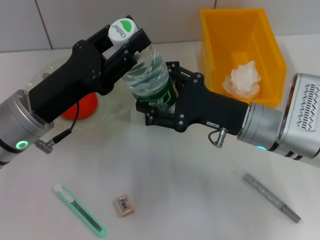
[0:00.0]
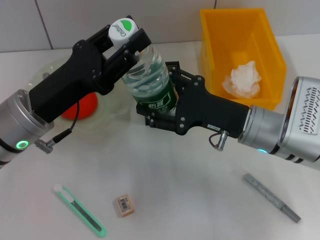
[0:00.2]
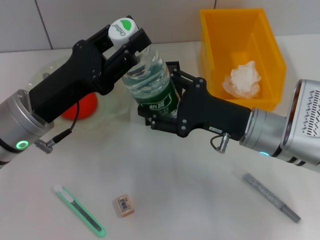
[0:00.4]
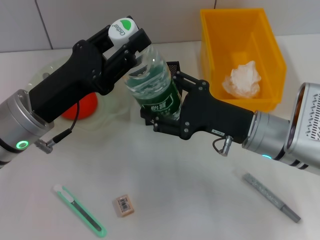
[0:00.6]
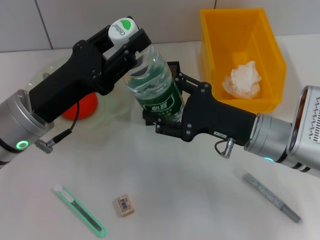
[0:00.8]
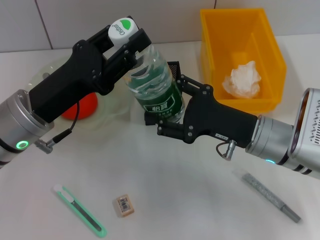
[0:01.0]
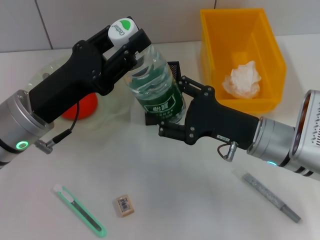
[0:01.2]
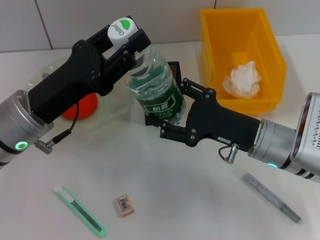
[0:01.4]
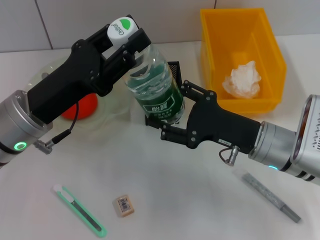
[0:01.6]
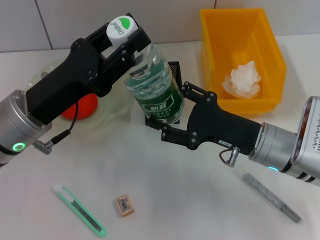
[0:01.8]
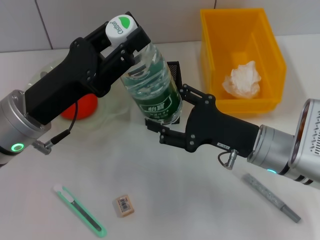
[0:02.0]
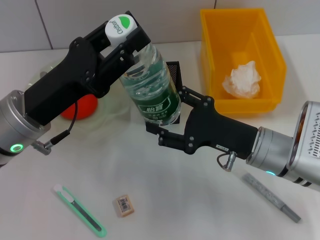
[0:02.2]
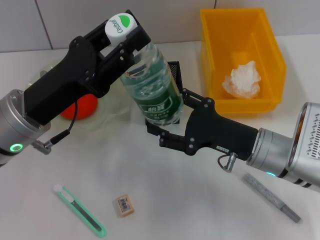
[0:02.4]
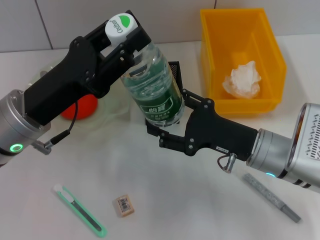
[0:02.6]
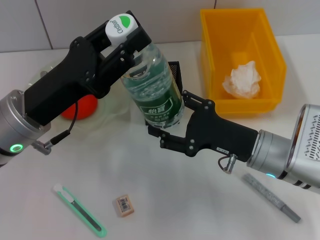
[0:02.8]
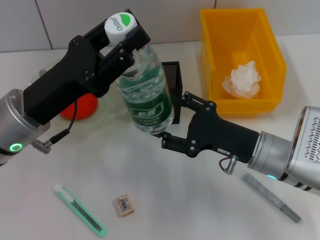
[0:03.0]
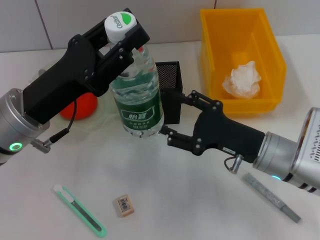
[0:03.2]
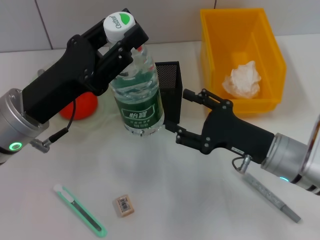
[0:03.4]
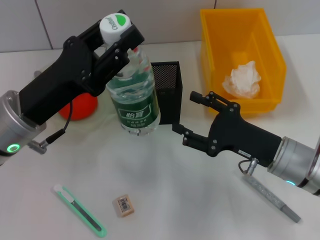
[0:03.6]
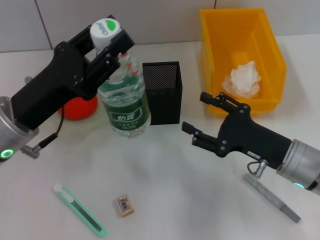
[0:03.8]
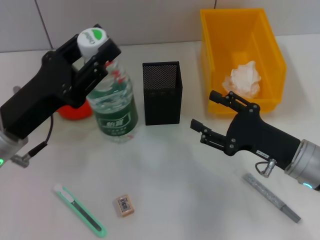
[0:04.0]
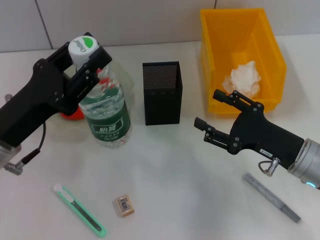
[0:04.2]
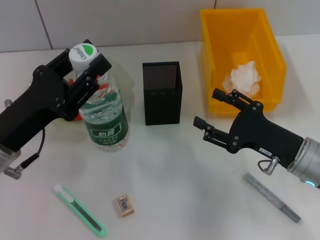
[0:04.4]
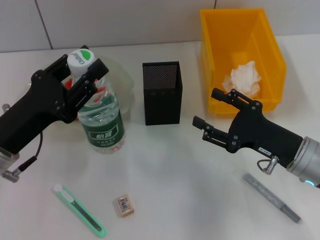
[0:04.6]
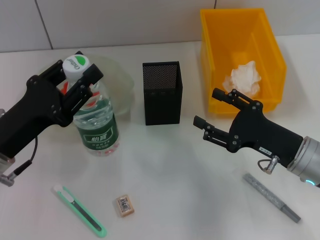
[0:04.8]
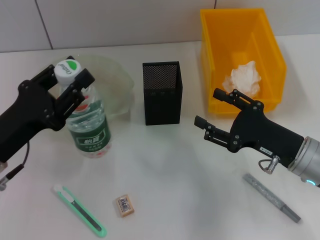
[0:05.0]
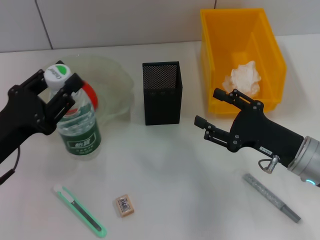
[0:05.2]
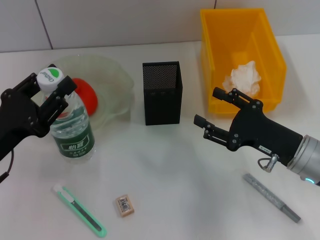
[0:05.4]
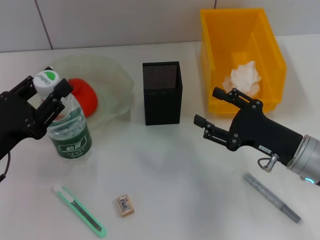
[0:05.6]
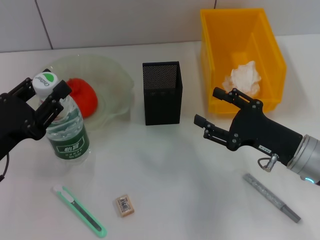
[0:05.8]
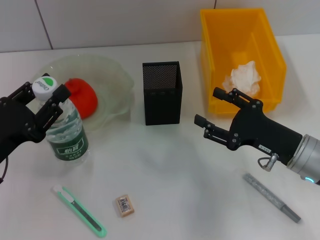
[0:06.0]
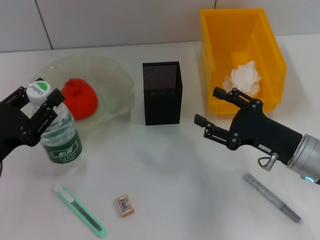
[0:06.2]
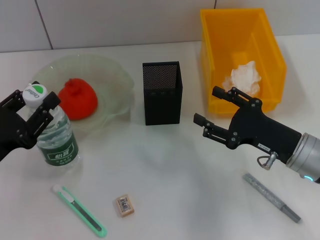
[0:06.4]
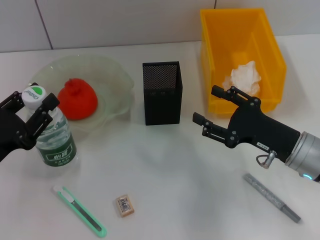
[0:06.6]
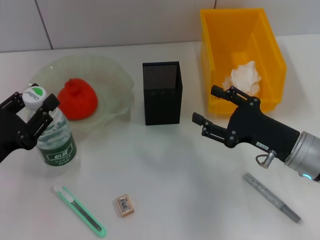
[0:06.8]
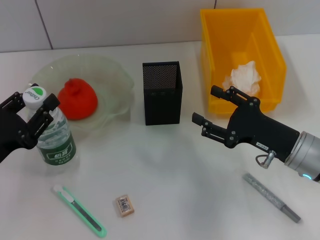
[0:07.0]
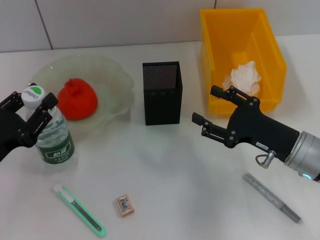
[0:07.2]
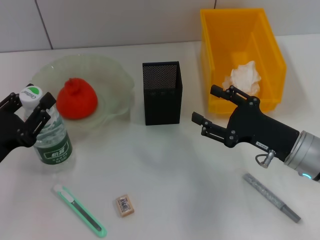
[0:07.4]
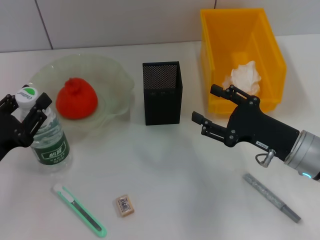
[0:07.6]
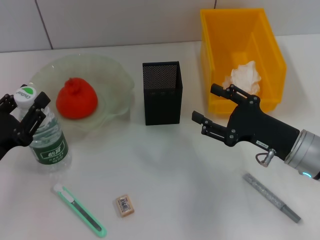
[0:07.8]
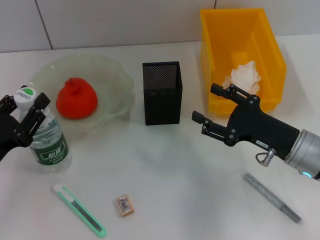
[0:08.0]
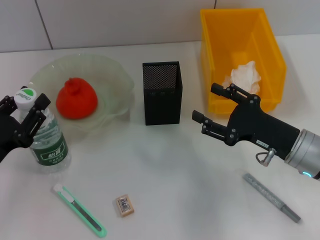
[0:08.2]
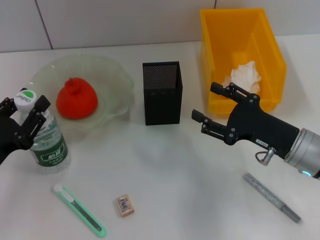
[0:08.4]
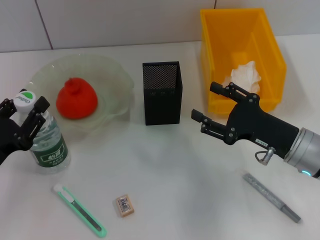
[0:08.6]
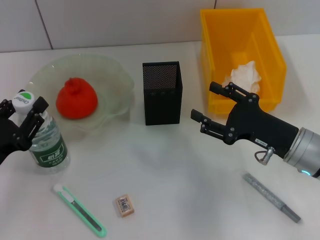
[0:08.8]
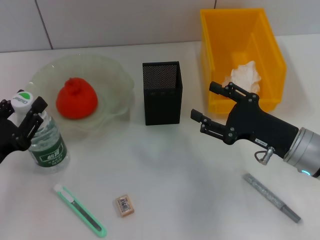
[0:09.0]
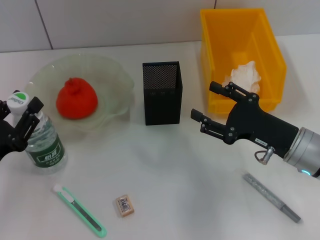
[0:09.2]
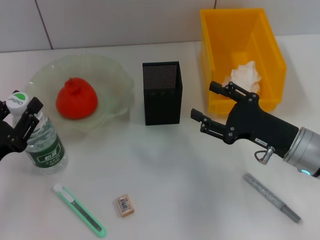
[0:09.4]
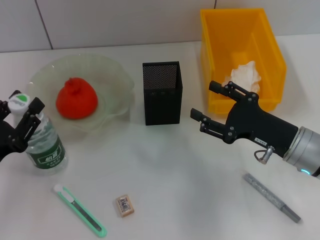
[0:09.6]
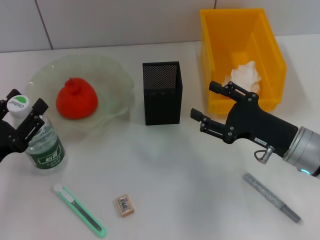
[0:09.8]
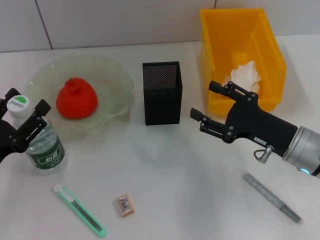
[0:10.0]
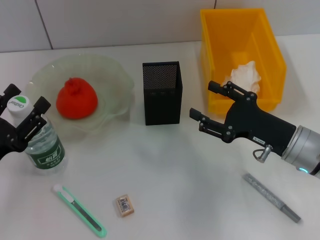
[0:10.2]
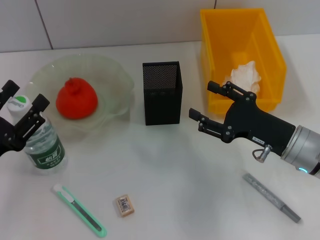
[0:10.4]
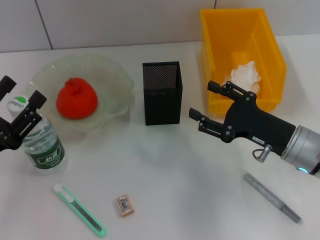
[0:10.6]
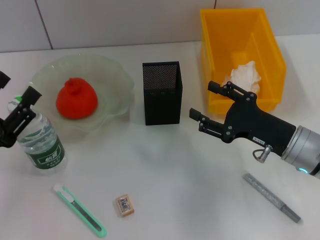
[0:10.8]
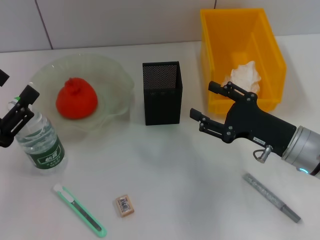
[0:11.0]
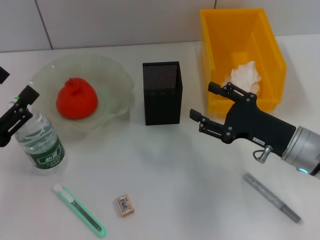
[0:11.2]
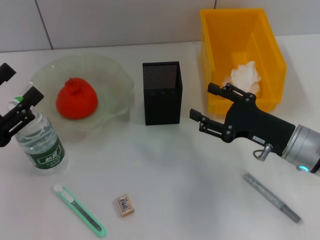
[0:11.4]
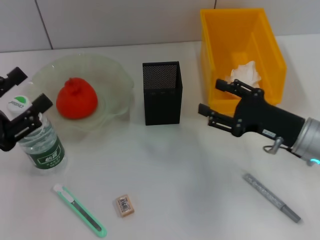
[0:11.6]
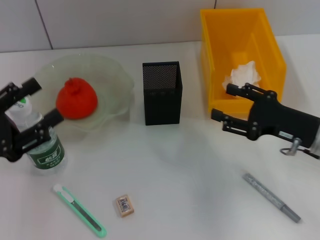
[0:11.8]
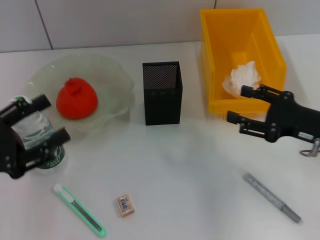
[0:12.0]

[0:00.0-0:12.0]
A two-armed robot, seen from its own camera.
Step, 0:00.0 to 0:02.4: Pass the water bottle from the right hand to the left hand.
Step, 0:02.6 to 0:10.0: Place the water bottle on the table with the left hand.
0:00.0 to 0:01.6: The grippers make only small movements.
0:01.6 to 0:03.0: Both grippers stay about where they are.
0:03.0 to 0:04.4: The right gripper is displaced to the right by approximately 5 cm. The left gripper moves about 5 cm.
0:04.4 to 0:06.0: The left gripper changes place by about 5 cm.
0:06.0 to 0:07.6: The grippers make only small movements.
0:07.6 to 0:09.0: Both grippers stay about where they are.
0:09.0 to 0:10.4: The left gripper opens its fingers.
0:10.4 to 0:12.0: The right gripper heads to the right, covering approximately 5 cm.

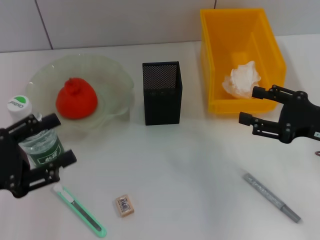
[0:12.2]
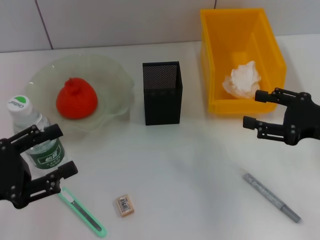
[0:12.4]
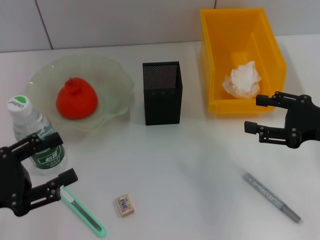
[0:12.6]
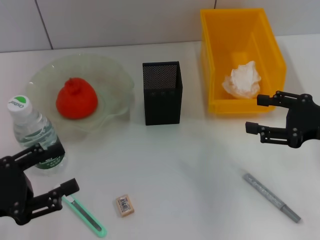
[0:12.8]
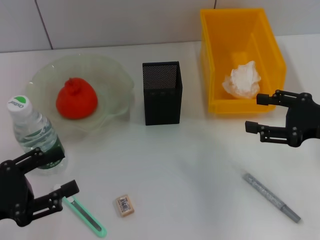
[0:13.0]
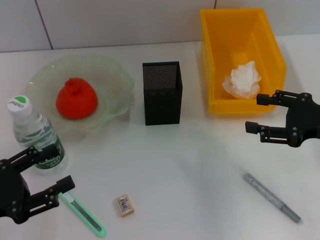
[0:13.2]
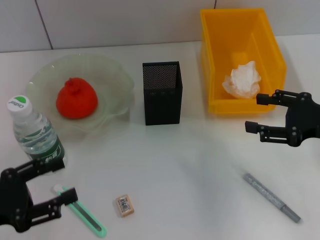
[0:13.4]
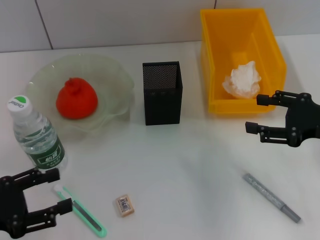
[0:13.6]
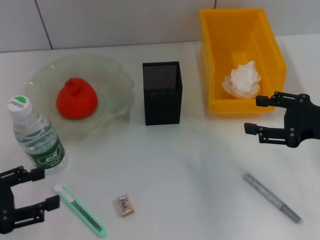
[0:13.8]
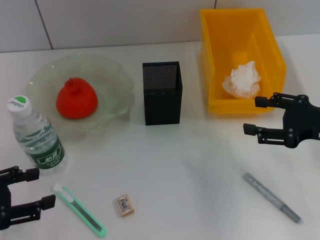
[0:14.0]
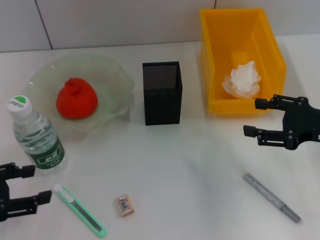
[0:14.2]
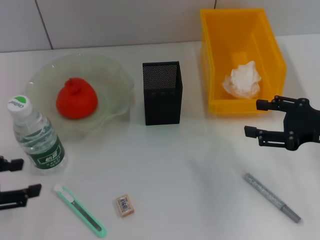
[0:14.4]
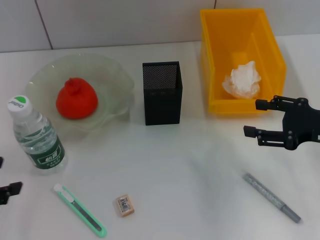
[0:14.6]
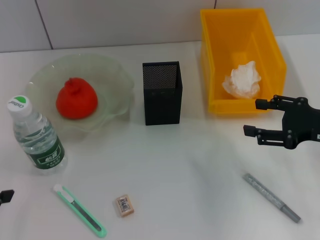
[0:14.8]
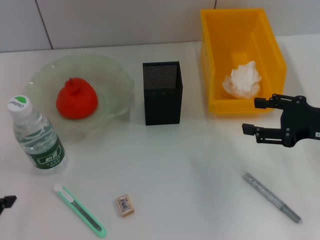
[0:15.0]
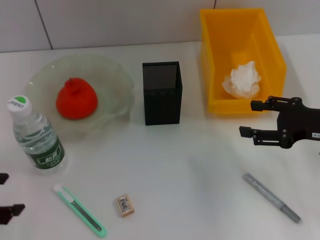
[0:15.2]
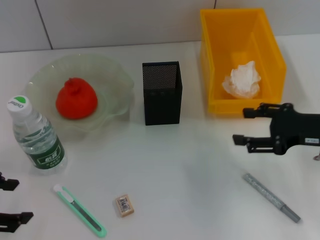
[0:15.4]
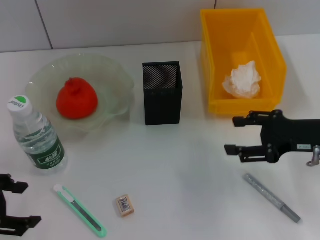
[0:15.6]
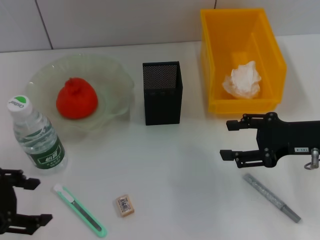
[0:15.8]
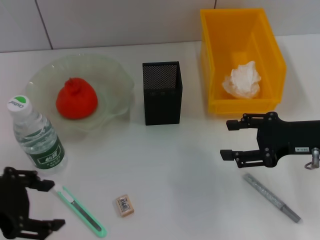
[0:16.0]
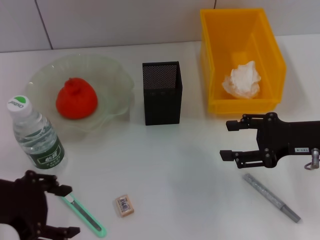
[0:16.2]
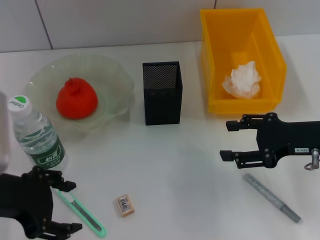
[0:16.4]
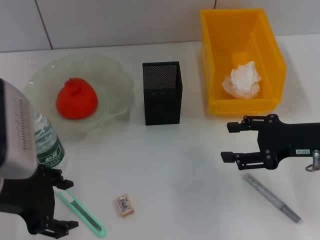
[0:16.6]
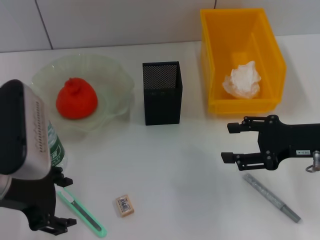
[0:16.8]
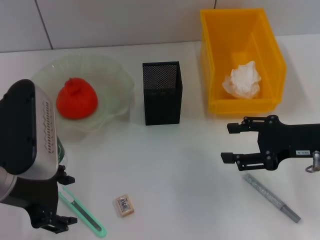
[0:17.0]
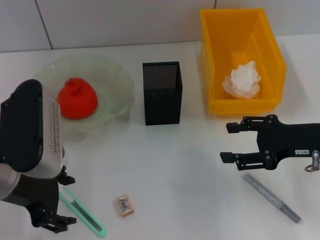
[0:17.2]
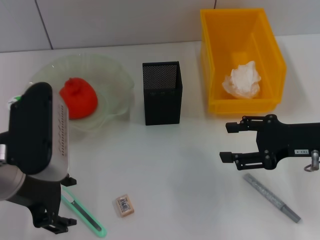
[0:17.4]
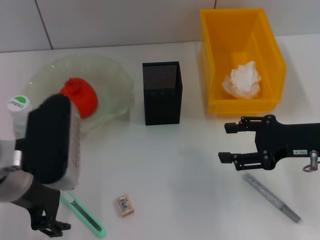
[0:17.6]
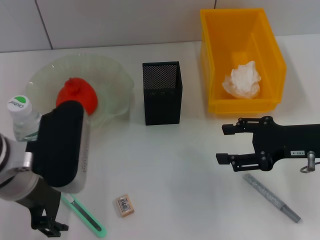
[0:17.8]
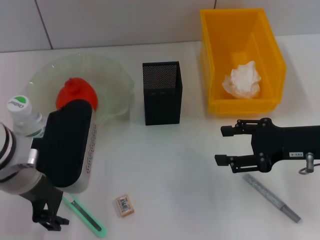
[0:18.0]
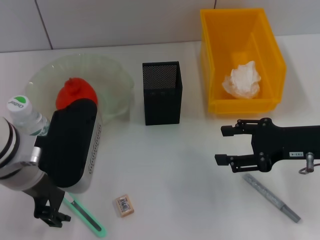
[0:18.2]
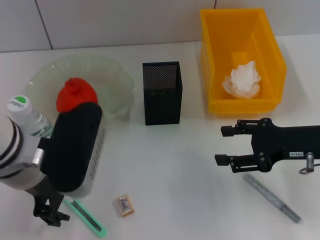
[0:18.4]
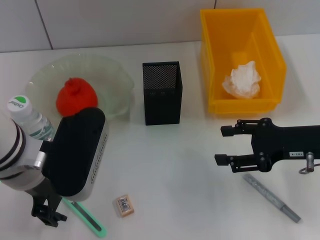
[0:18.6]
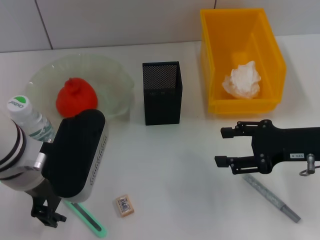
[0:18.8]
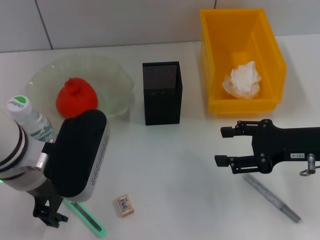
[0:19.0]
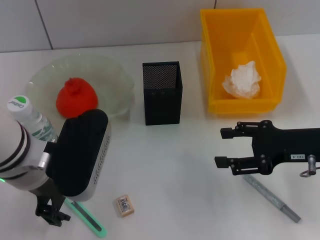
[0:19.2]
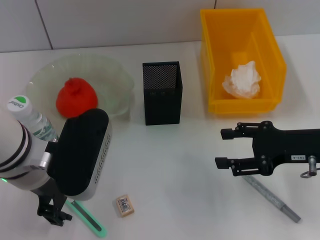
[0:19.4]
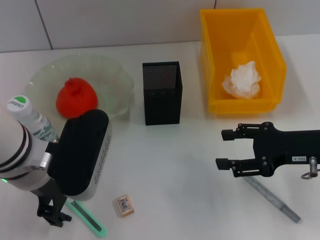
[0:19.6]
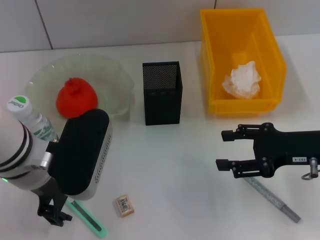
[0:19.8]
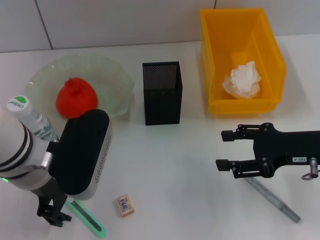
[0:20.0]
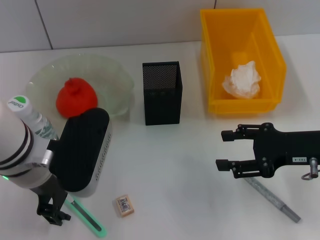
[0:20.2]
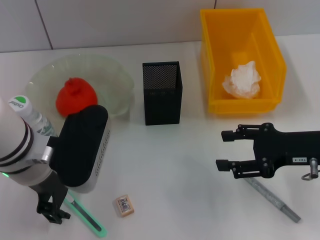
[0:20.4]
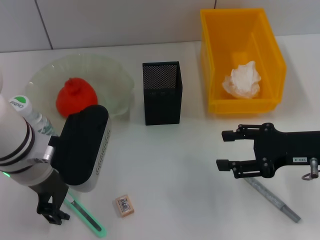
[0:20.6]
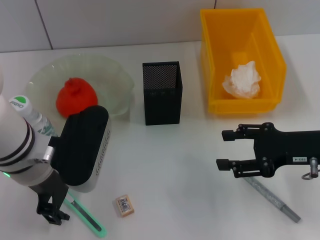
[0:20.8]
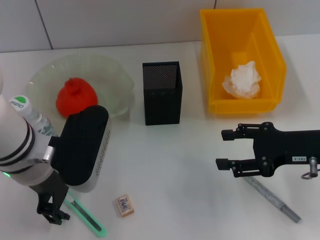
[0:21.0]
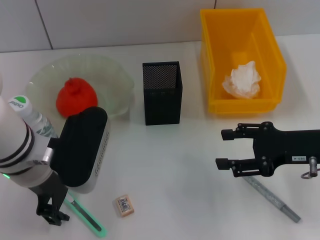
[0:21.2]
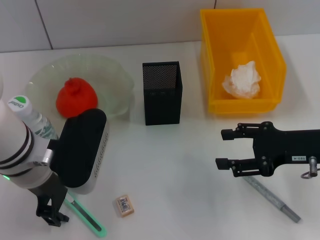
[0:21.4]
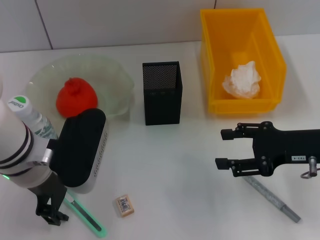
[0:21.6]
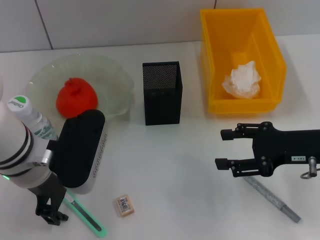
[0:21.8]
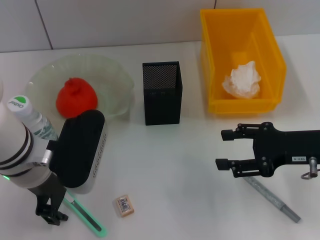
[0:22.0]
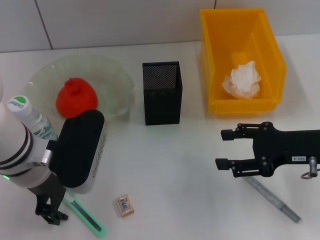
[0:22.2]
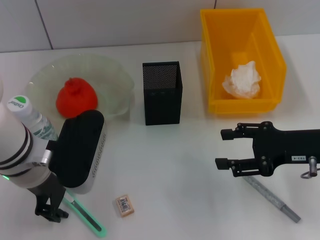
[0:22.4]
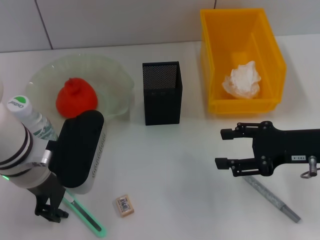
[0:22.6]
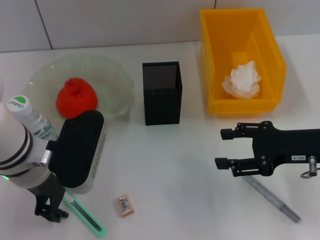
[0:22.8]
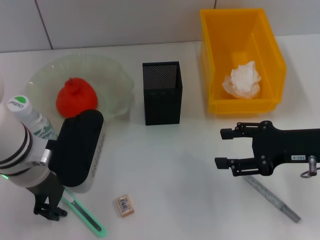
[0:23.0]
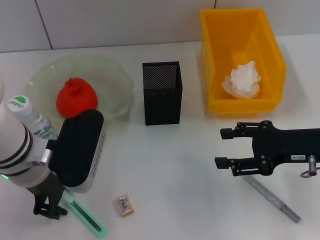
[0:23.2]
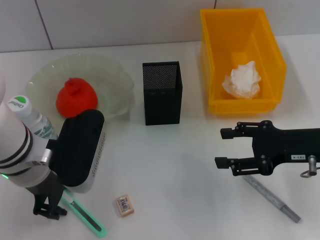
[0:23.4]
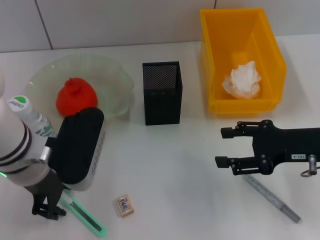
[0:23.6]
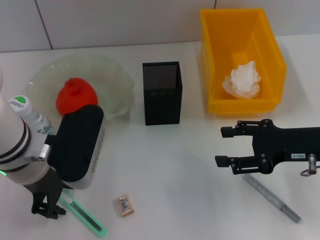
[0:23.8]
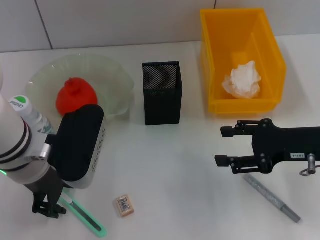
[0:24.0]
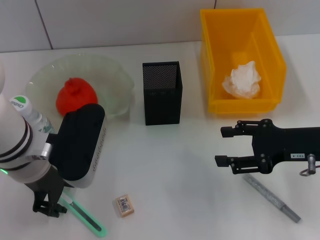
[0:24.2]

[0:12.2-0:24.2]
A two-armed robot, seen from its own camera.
0:13.8 to 0:15.2: The left gripper heads upward, covering roughly 5 cm.
0:15.2 to 0:16.6: The left gripper shifts about 10 cm to the right.
0:16.6 to 0:18.2: The left gripper goes approximately 5 cm to the right.
0:18.2 to 0:21.2: The grippers move only a little.
0:21.2 to 0:24.2: Neither gripper changes place.
